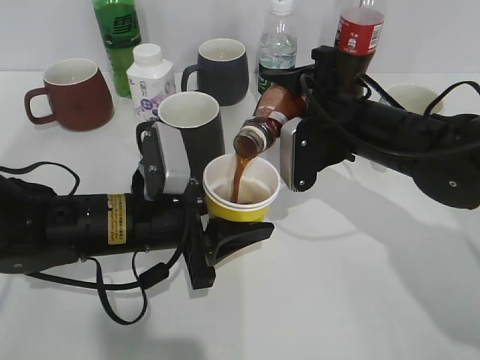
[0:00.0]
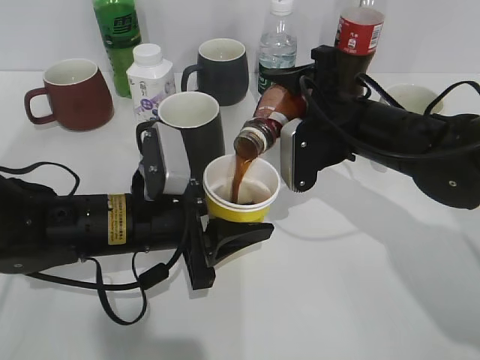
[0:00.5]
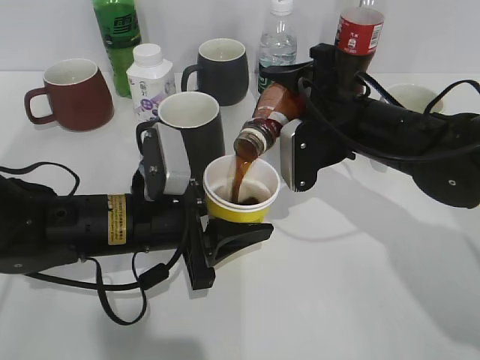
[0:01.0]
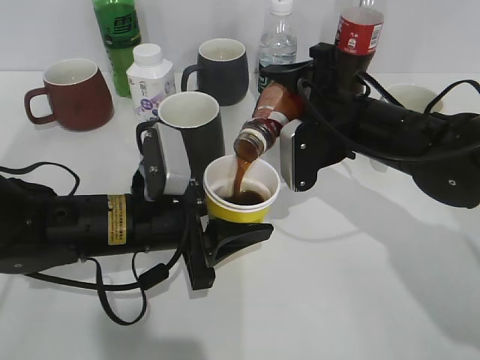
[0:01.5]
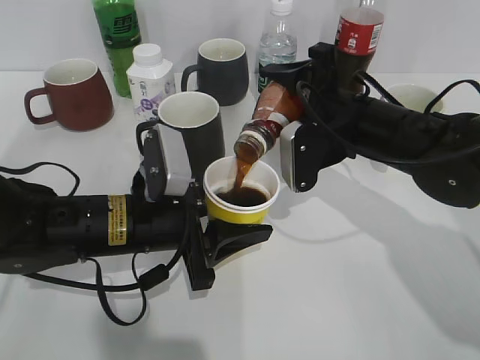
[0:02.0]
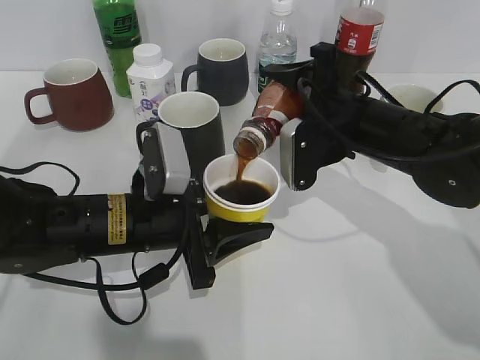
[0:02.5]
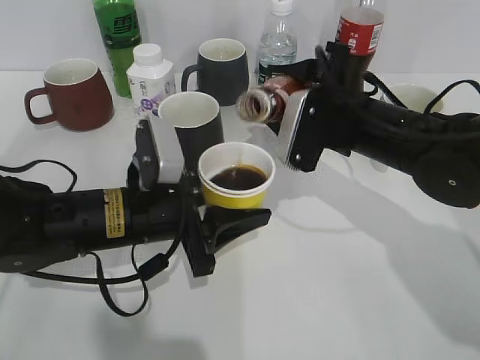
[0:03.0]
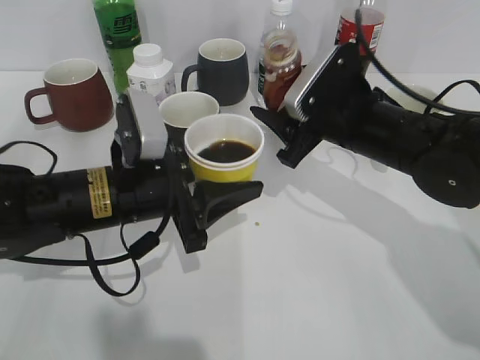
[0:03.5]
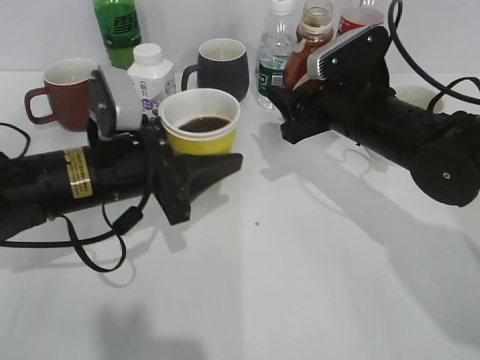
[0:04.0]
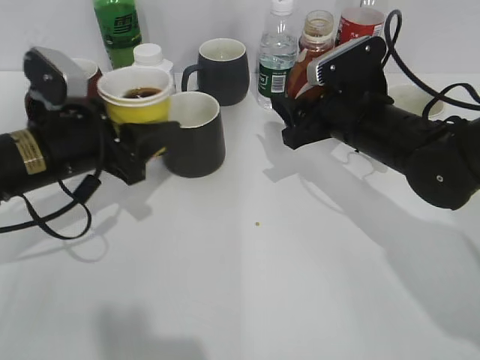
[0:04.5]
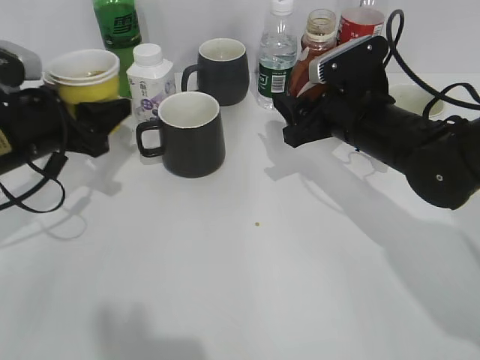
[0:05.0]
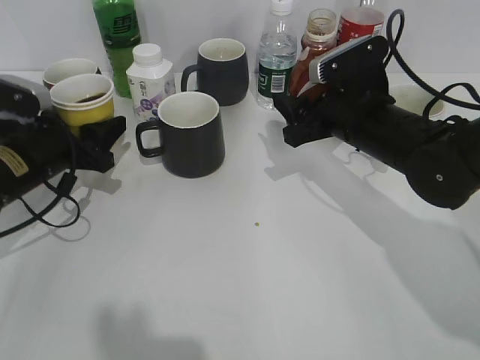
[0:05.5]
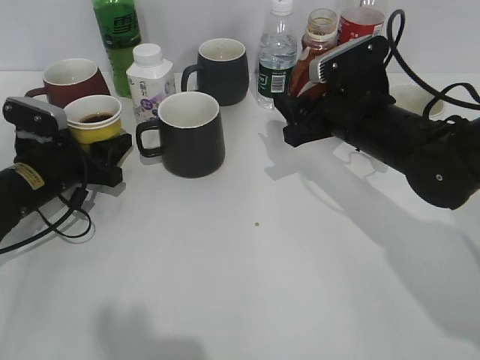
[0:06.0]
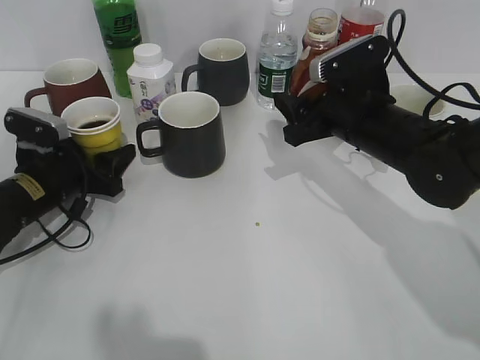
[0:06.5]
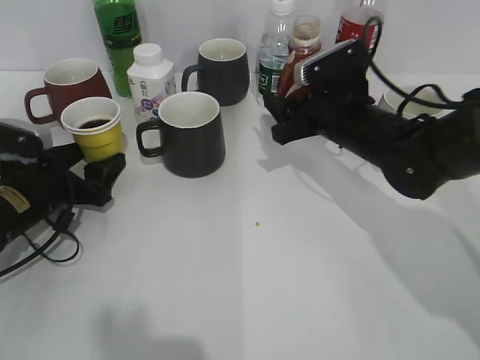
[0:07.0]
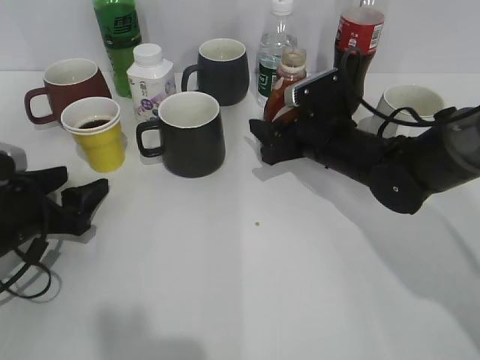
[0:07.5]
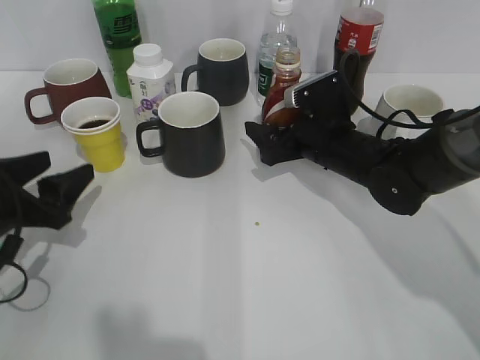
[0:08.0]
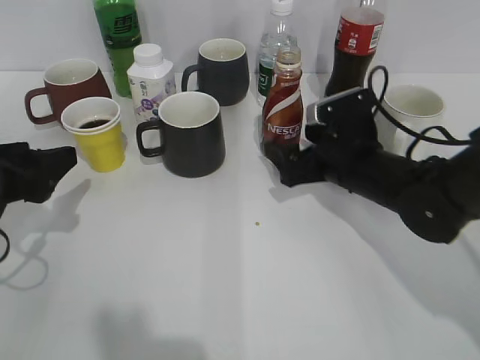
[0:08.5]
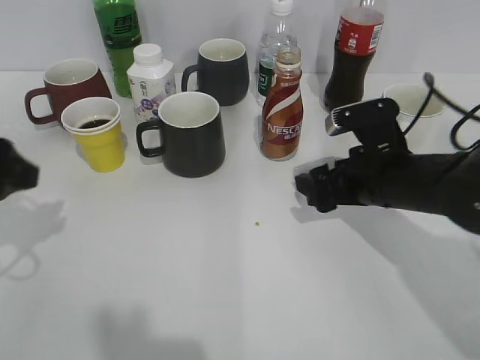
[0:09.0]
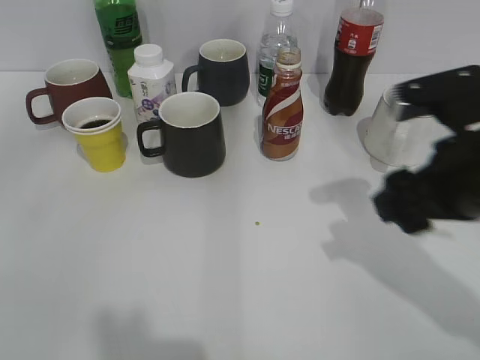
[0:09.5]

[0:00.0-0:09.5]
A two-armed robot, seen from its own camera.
Step, 0:00.0 to 0:03.0: Pour the coffee from bottle to cup with right gripper.
Step, 0:03.5 to 0:06.5: Place the yellow paper cup on the table with left gripper.
Step, 0:07.0 to 0:08.5: Place the coffee bottle on the table with right gripper.
0:00.0 to 0:02.0: There are only small adjustments of the grippers.
0:02.0 to 0:04.0: The left gripper ends up some 5 cm from where it was.
0:04.0 to 0:05.5: The left gripper goes approximately 10 cm to the left and forward.
0:05.5 to 0:07.5: The right gripper shifts some 5 cm downward. Meanwhile the left gripper heads backward, covering roughly 5 cm, and opens up.
0:07.5 to 0:09.5: The left gripper goes some 25 cm upward and backward; the right gripper travels backward, upward and to the right by about 20 cm, and opens and closes again.

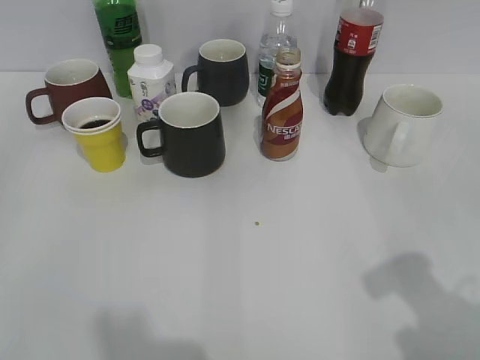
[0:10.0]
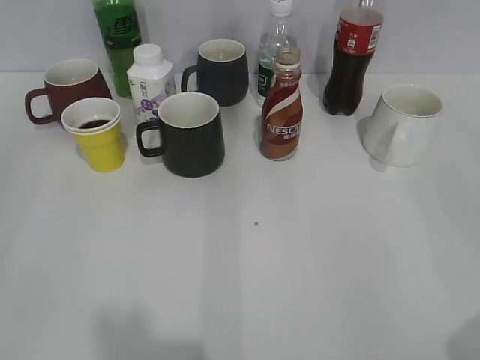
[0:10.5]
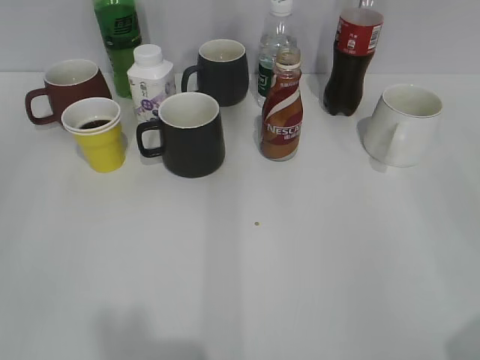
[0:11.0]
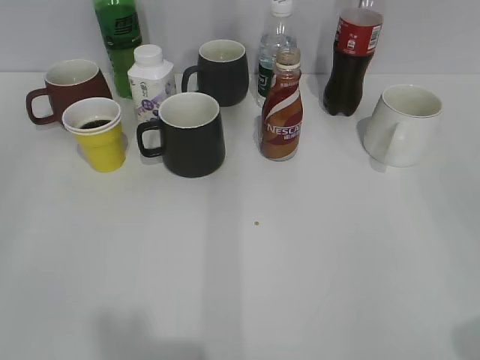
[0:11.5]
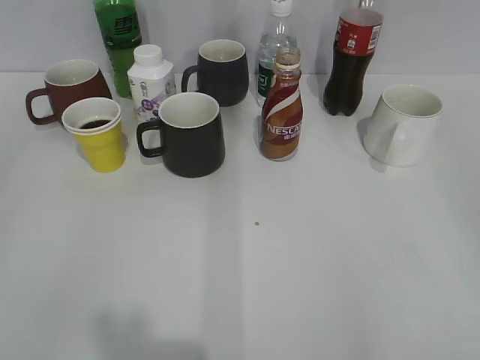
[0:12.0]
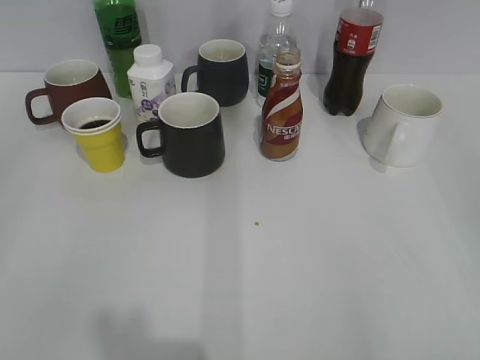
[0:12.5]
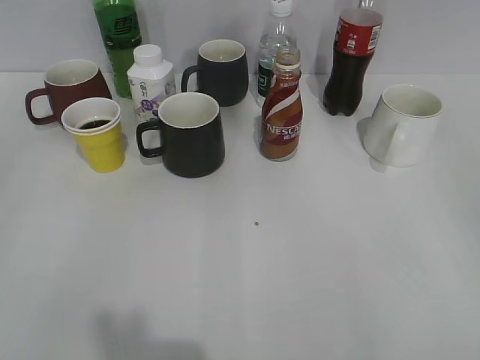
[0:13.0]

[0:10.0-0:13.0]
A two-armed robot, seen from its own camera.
0:10.0 to 0:11.5: The right gripper travels backward and to the right by some 10 cm.

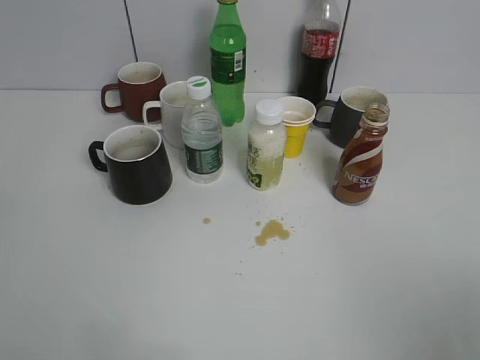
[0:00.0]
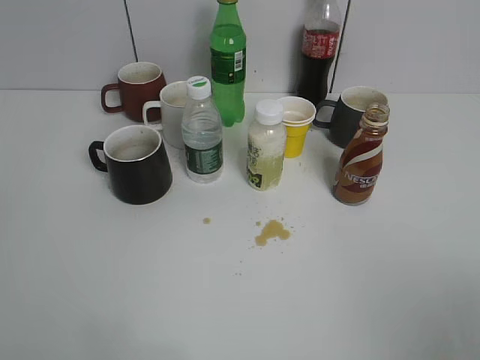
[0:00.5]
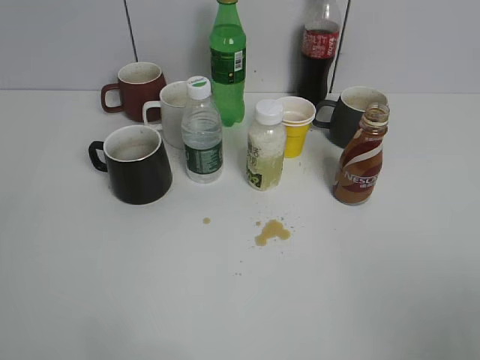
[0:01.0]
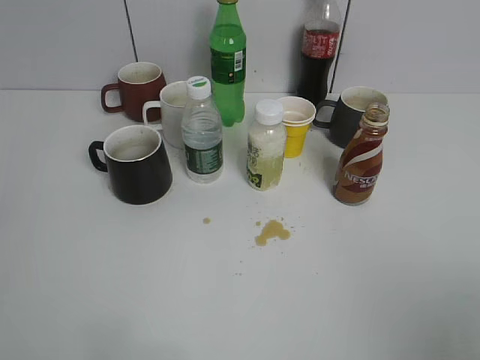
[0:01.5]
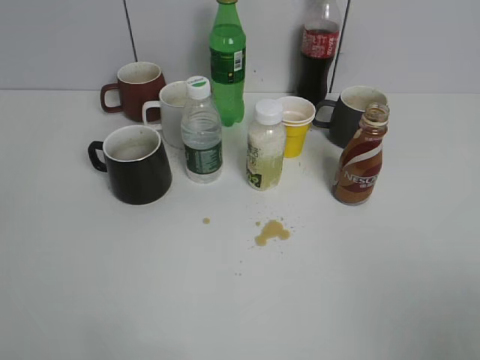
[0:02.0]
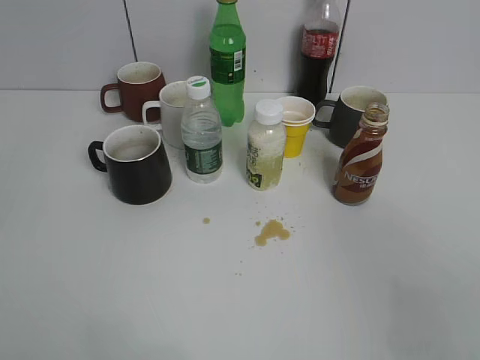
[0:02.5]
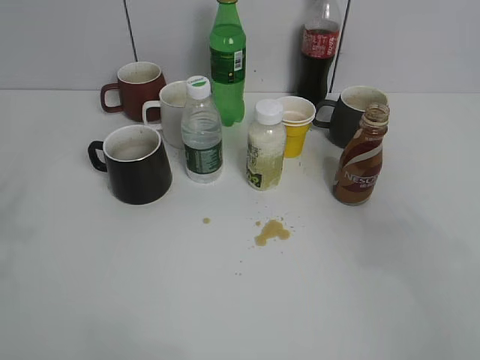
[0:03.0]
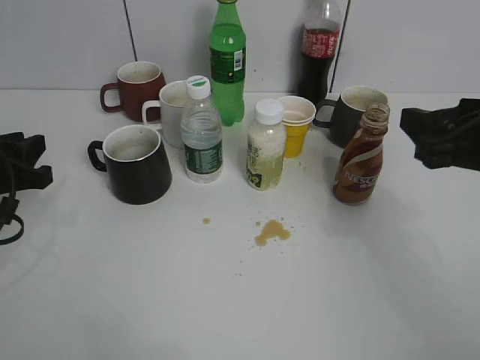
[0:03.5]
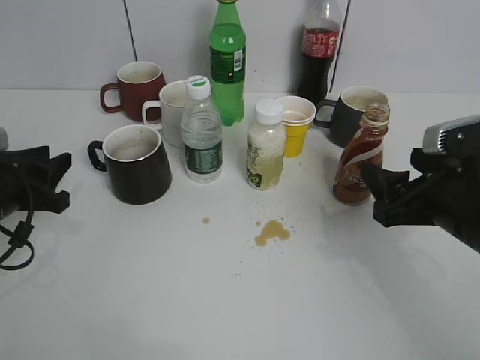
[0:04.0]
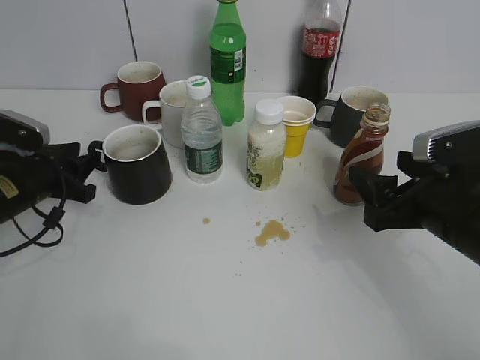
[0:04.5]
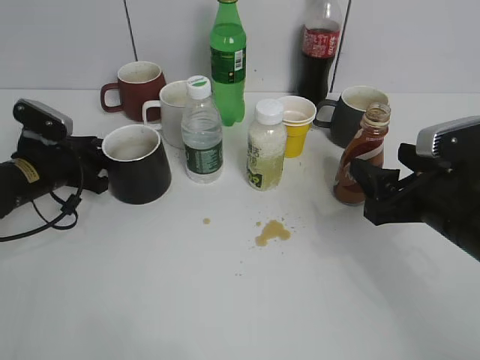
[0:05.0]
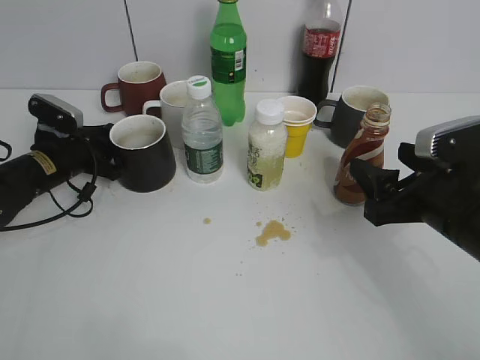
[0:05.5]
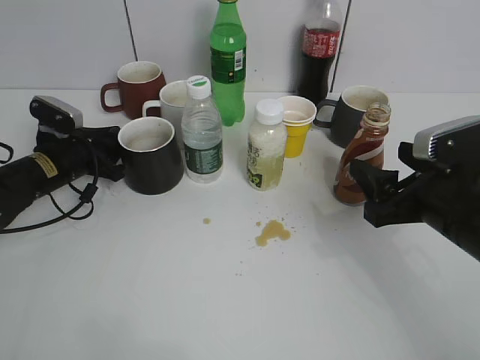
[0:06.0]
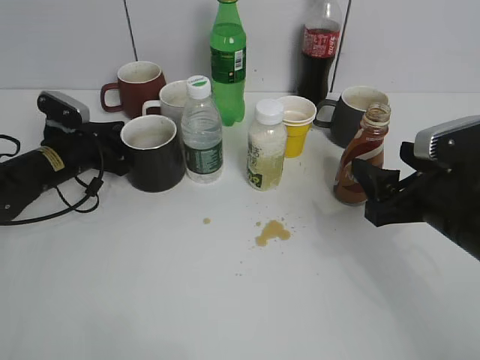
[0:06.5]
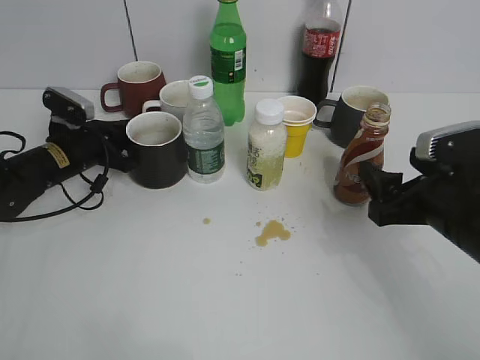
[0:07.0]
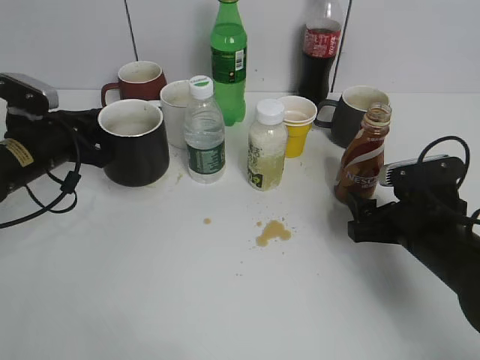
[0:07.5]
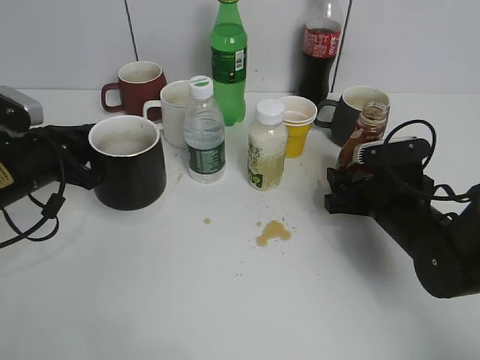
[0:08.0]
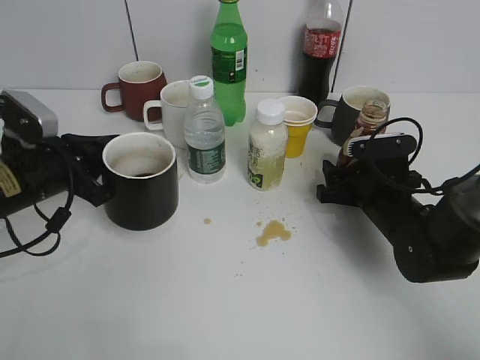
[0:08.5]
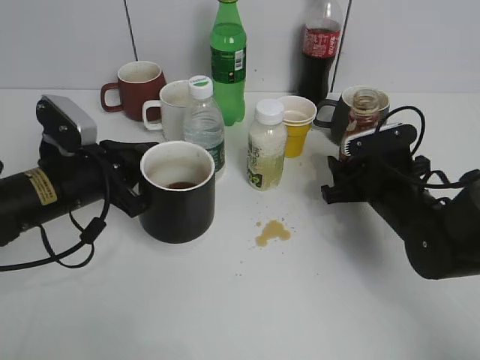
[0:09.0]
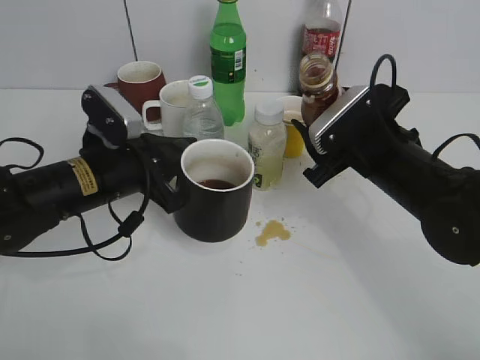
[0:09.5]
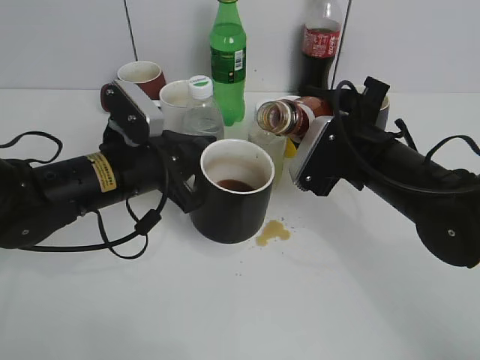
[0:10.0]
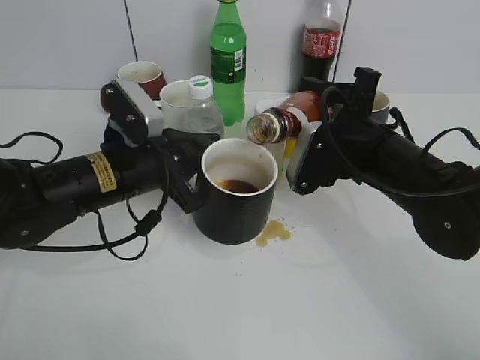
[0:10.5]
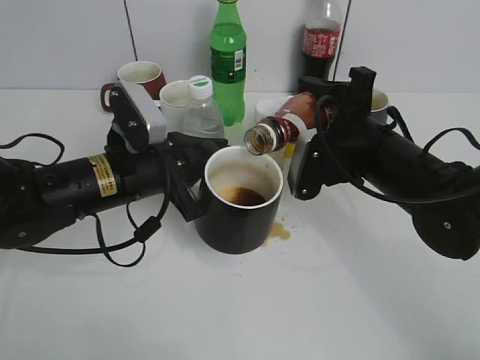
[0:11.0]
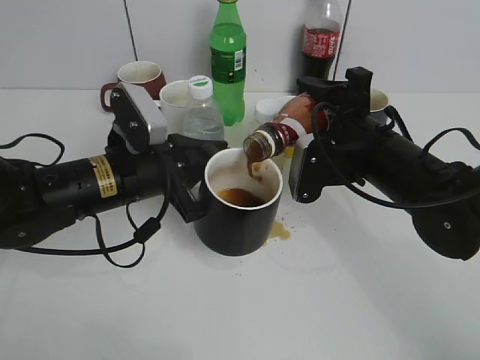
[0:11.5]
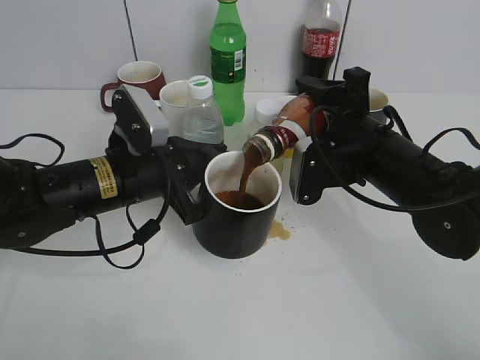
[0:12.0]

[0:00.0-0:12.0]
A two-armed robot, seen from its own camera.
Step, 0:02.0 to 0:06.5: Grasp the black cup with left gripper.
Step, 0:07.0 to 0:08.5: Lift the black cup with left gripper.
0:02.0 to 0:04.0: The two grippers go roughly 30 cm forward and downward.
0:04.0 to 0:06.0: The left gripper goes approximately 15 cm forward and downward.
0:06.0 to 0:08.0: The right gripper heads downward and forward, covering some 10 cm, while the left gripper travels backward and upward by approximately 10 cm, and closes.
0:08.0 to 0:10.0: The right gripper heads upward, covering roughly 10 cm, and closes. Meanwhile the left gripper heads to the right, covering approximately 10 cm.

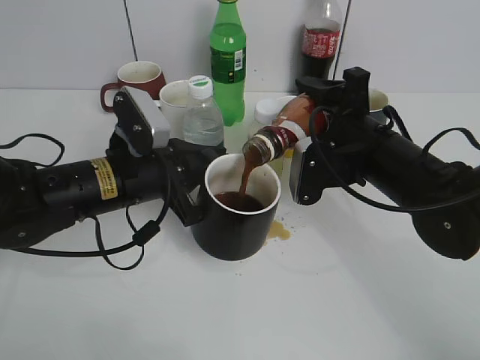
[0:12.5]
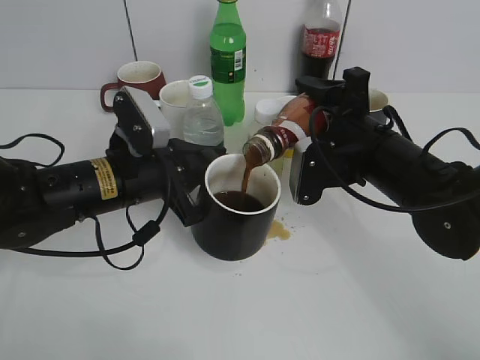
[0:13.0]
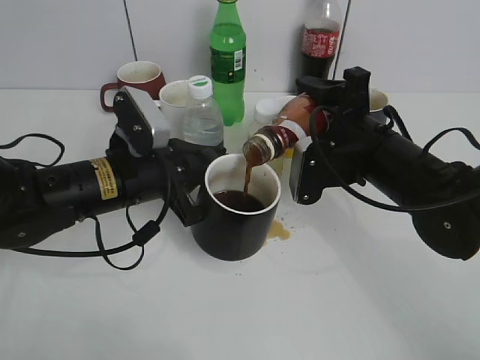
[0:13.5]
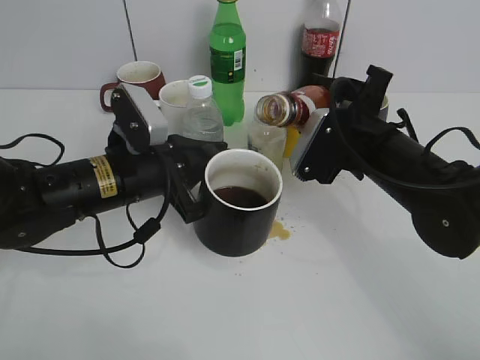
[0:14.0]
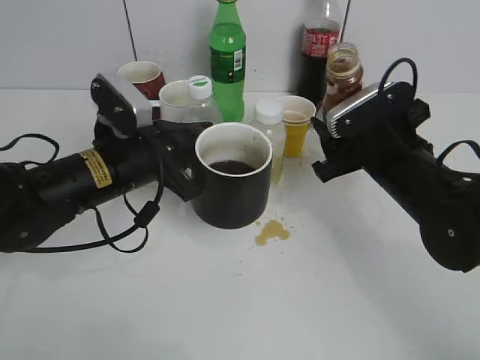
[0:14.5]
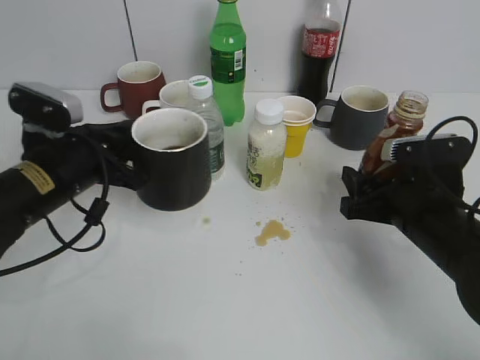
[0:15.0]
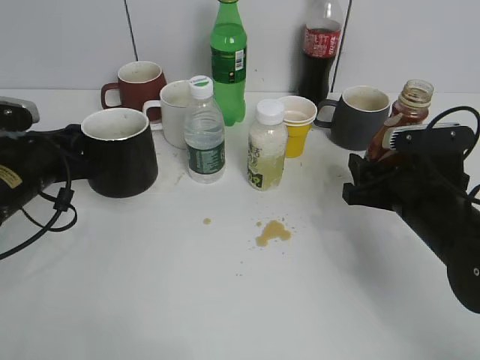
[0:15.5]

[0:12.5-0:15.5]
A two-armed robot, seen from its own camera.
0:14.0 to 0:15.5: The right gripper is displaced to the right by about 5 cm. The left gripper is displaced to the left by approximately 10 cm.
